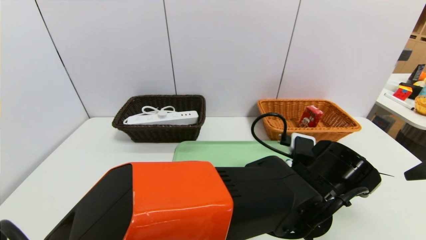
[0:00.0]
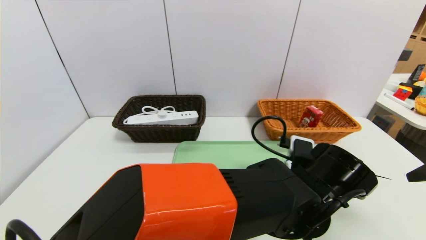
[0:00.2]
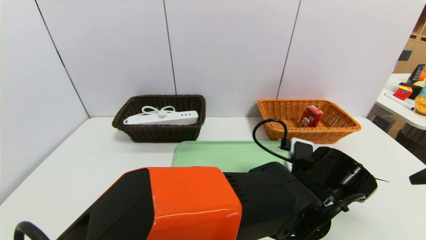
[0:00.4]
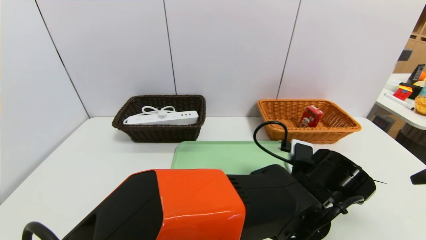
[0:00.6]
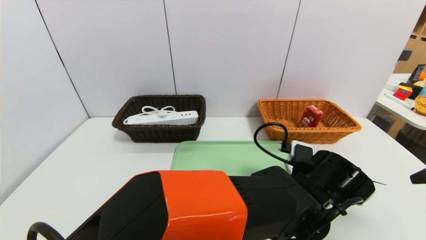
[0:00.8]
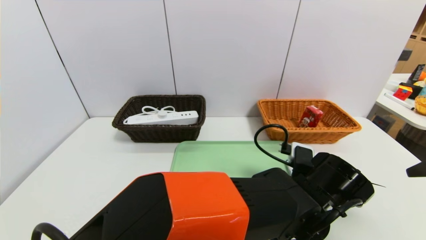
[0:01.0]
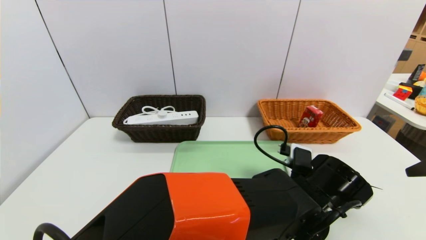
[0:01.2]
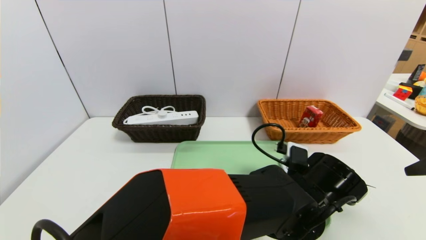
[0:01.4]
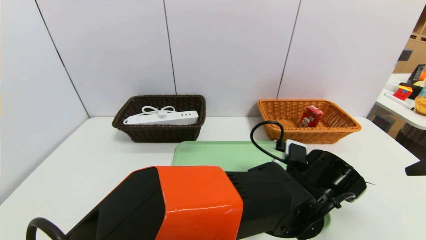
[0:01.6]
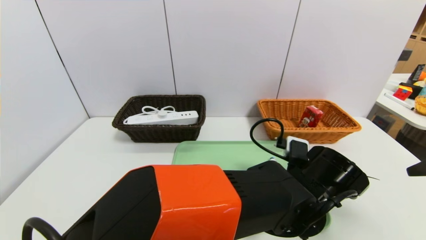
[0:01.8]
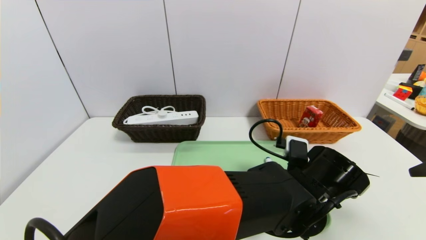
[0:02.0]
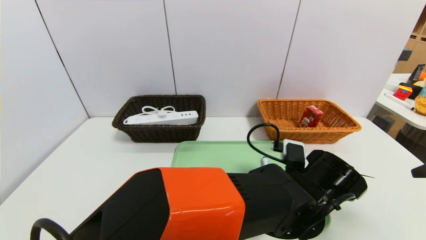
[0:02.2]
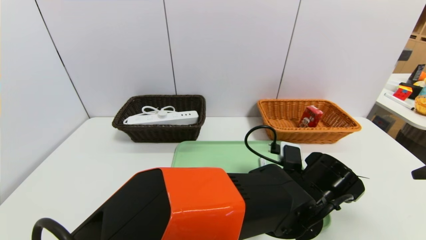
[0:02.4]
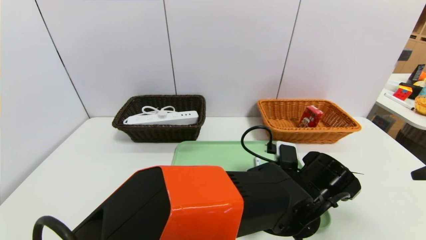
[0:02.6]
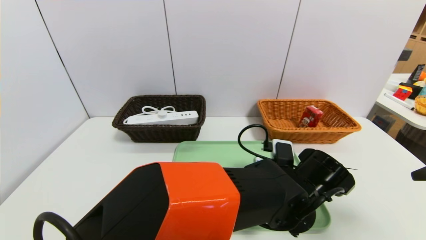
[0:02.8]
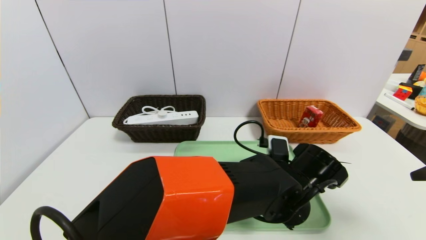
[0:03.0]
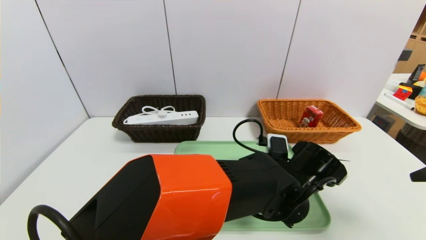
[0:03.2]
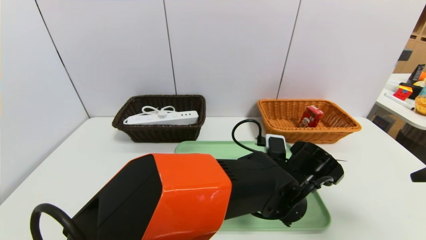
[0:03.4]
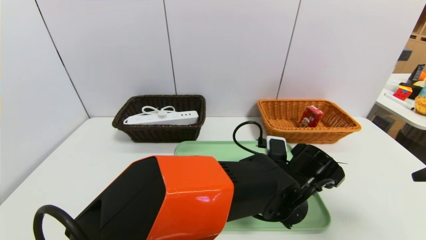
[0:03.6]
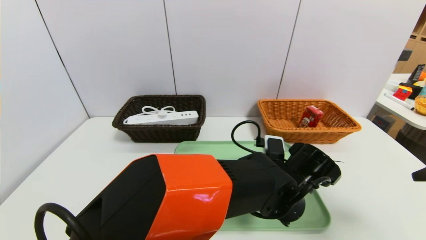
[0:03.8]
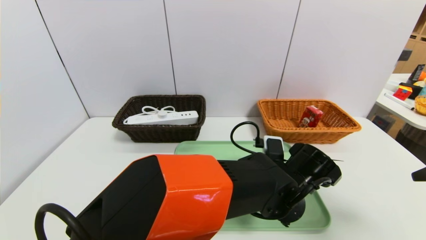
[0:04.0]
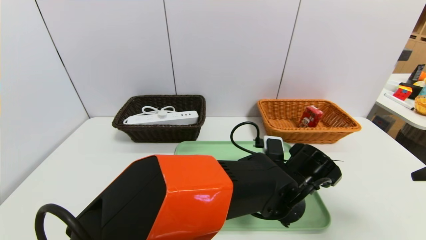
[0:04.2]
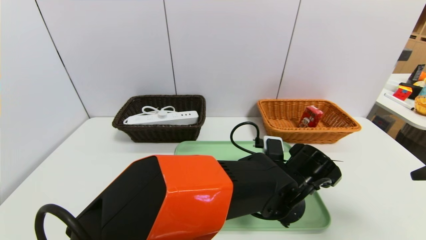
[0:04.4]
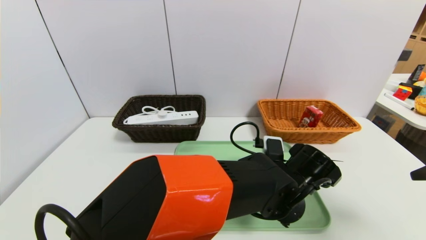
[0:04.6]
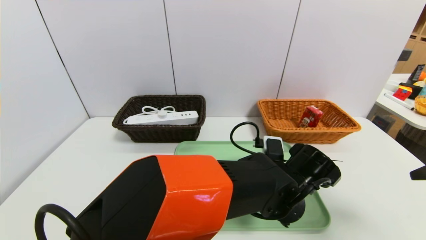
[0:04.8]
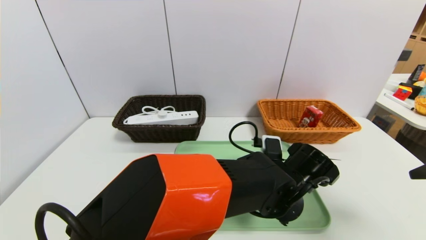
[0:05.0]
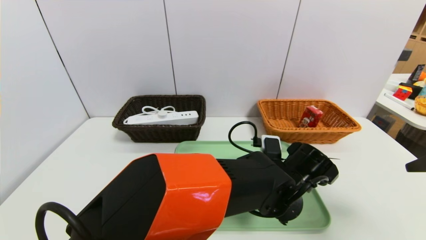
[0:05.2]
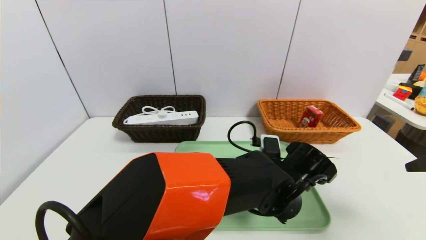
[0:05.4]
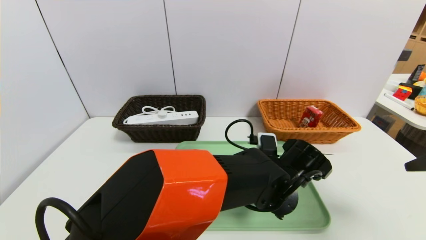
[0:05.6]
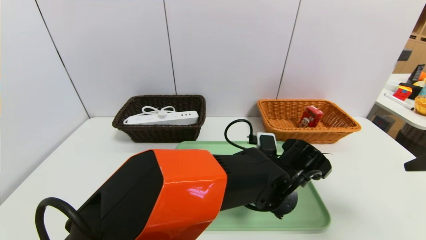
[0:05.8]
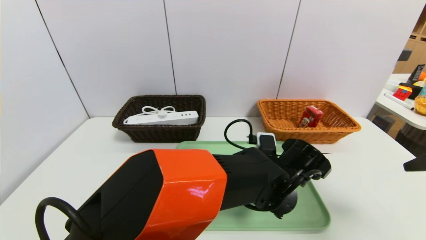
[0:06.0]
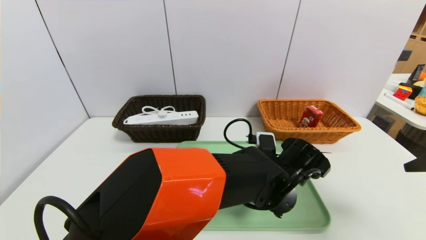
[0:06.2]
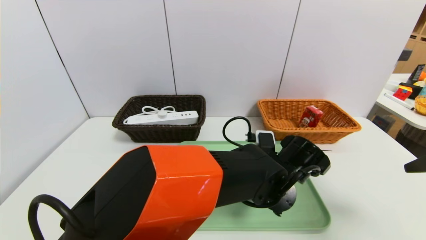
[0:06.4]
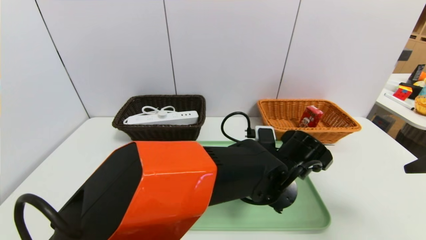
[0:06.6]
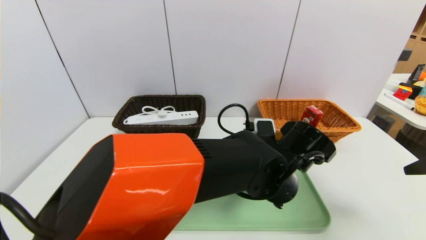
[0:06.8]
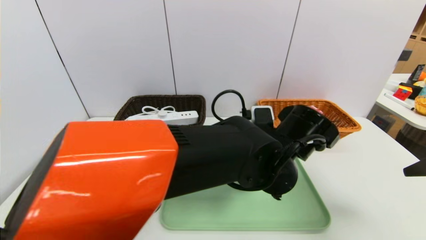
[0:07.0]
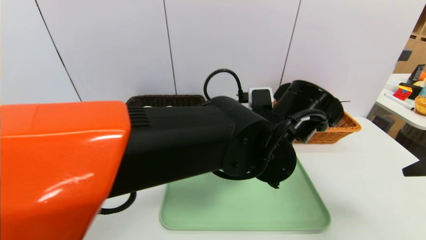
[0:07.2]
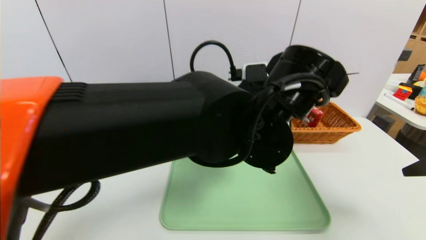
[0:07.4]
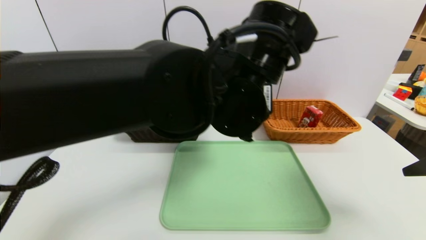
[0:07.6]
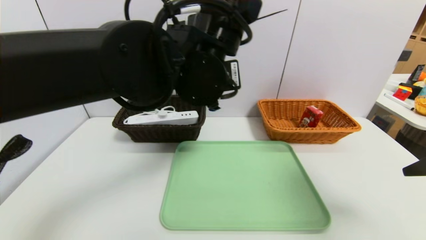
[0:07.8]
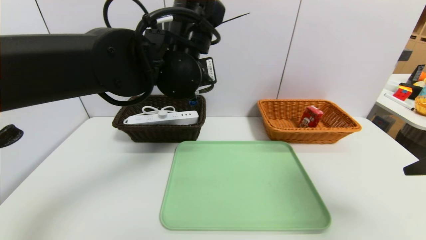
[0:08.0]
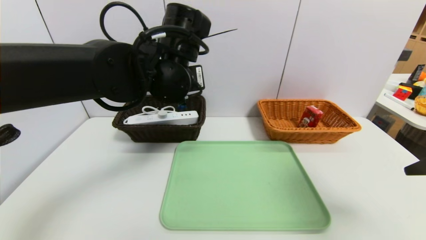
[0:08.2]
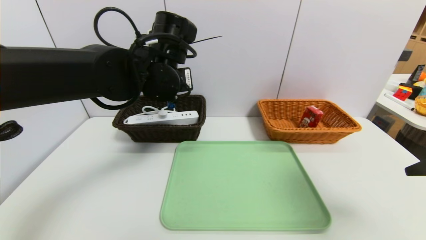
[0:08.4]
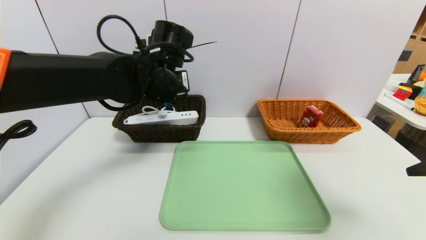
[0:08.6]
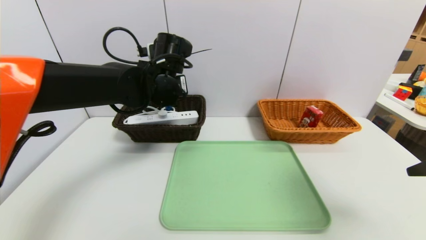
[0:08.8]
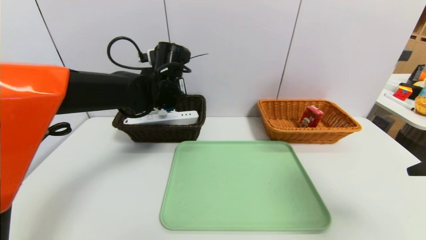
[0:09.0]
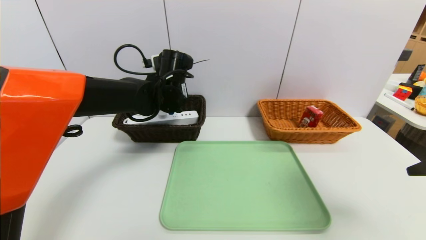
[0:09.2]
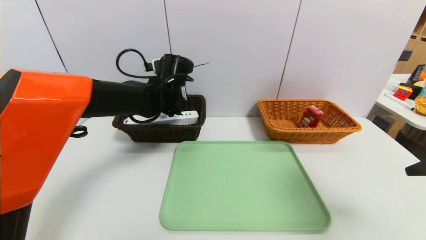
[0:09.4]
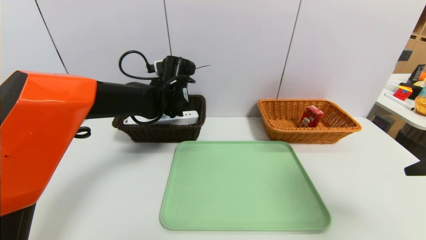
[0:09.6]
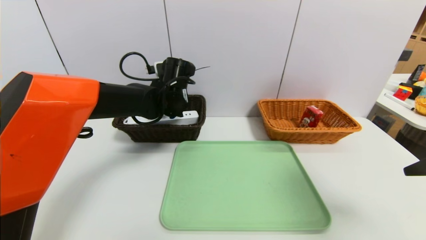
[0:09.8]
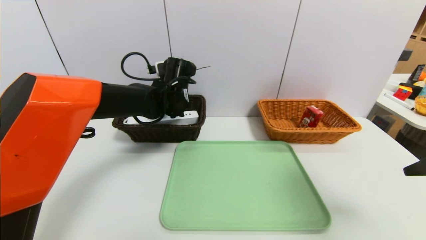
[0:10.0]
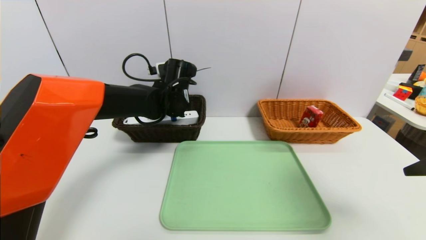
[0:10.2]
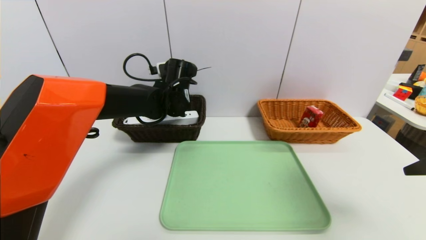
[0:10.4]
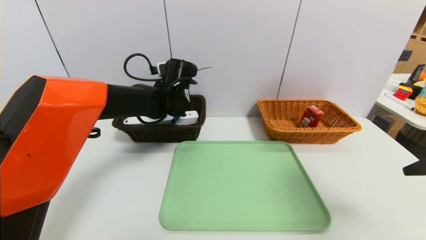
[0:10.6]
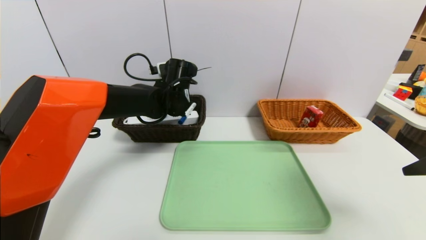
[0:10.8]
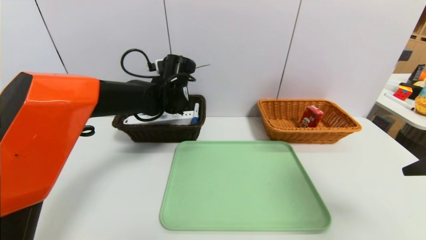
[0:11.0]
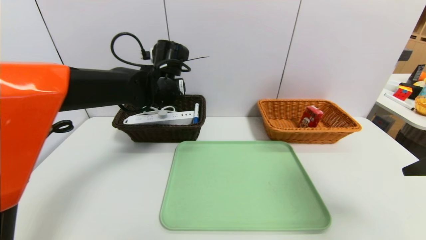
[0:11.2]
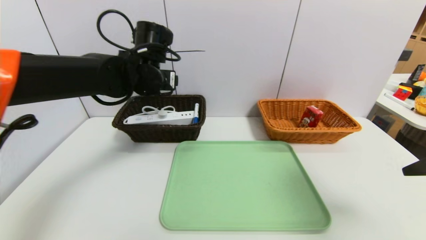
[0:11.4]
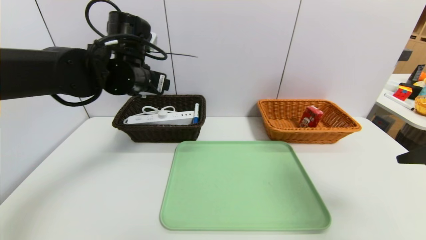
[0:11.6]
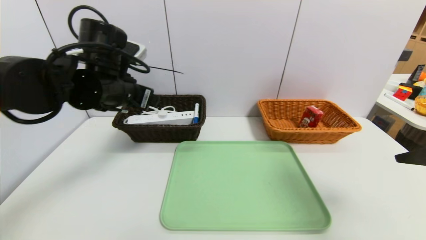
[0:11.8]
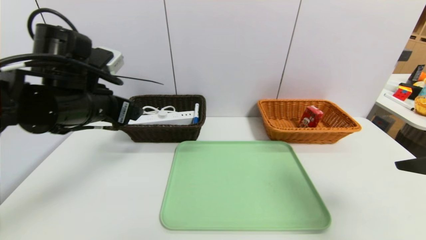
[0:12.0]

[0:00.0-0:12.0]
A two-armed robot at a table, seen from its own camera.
Task of the whole recording: place the food in the right basket with the right gripper, and place the non food items in the left basket with the left gripper.
Step, 0:00.0 to 0:11.6: Grasp the blue marker and put it in the left basket.
0:00.0 to 0:03.0: The grippers make only small movements.
0:03.0 to 0:04.4: Both grippers stay about where they are.
0:04.4 to 0:06.0: The left gripper closes its fingers.
0:06.0 to 0:07.6: The left gripper heads upward and to the left, covering about 20 cm.
0:07.6 to 0:09.0: The left gripper shifts approximately 20 cm forward and to the left.
0:09.0 to 0:10.4: The left gripper opens.
0:10.4 to 0:12.0: The left gripper heads backward and to the left, covering approximately 20 cm, and opens up.

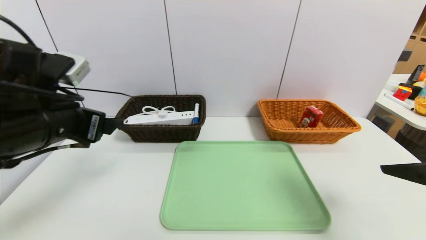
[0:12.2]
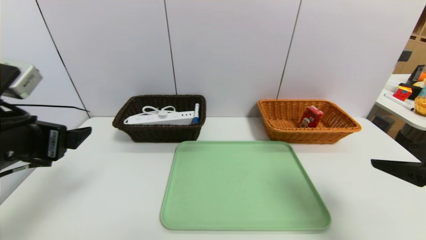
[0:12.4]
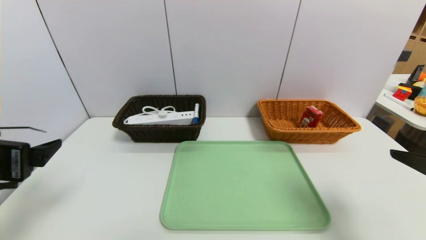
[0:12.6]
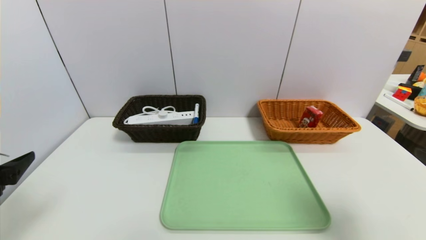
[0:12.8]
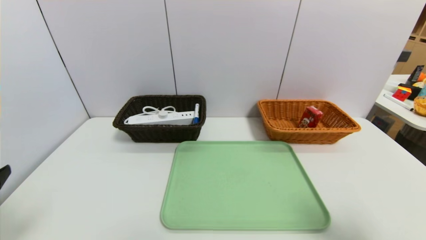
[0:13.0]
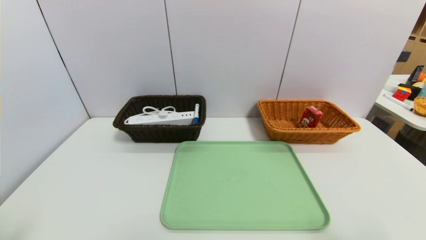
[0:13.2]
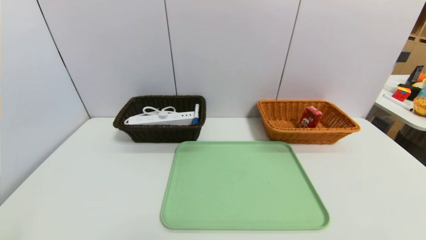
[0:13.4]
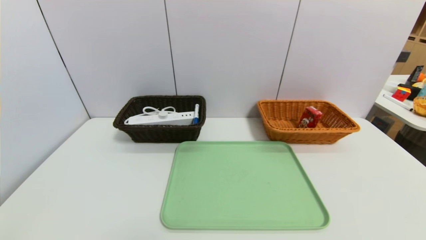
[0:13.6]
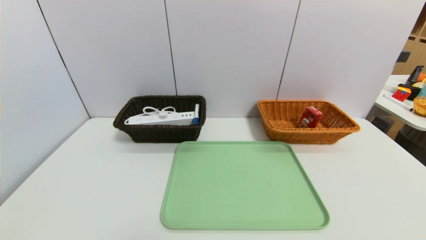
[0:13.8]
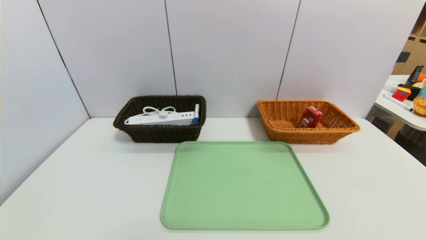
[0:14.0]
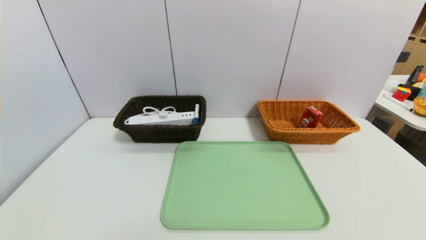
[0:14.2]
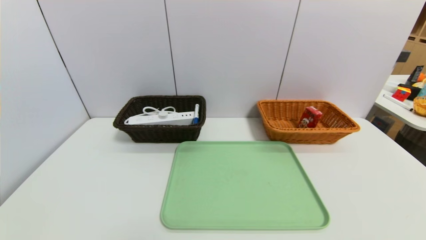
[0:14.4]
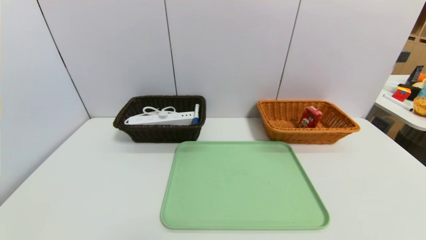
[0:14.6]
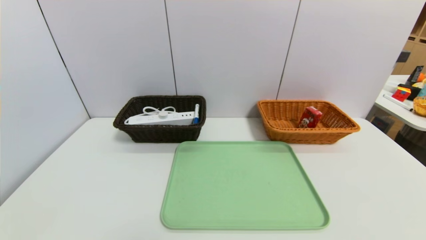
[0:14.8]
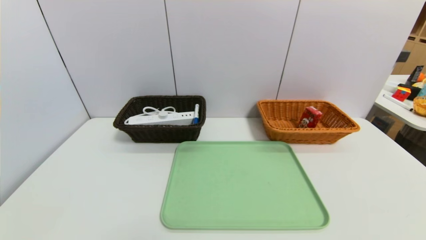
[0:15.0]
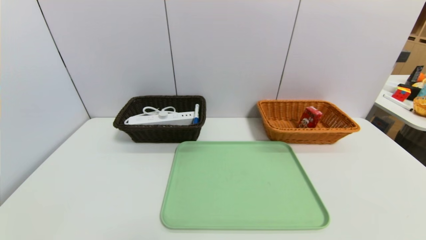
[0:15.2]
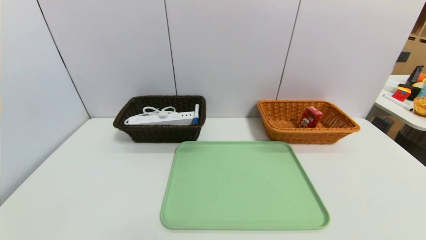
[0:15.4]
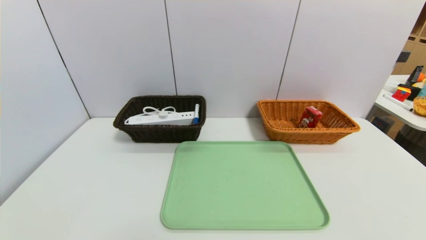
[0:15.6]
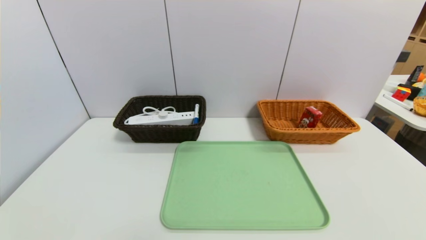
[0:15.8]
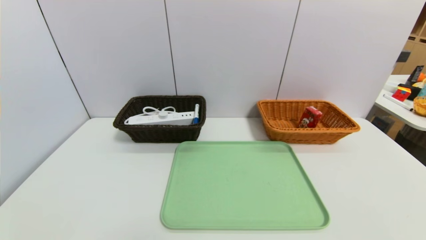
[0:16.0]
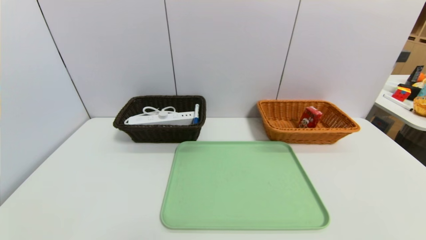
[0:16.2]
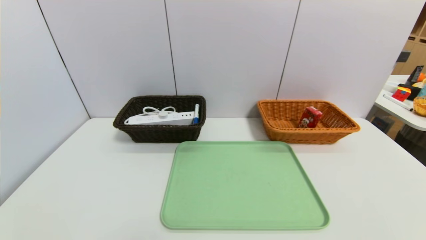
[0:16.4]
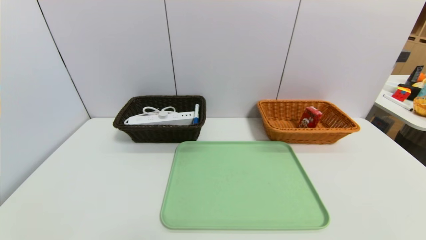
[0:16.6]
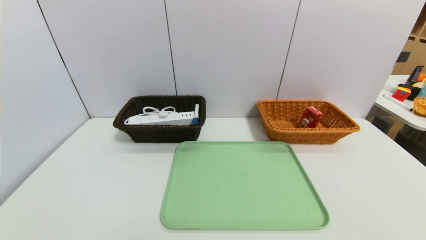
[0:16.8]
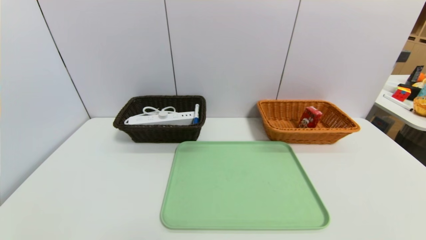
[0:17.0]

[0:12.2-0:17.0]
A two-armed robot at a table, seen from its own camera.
Task of the whole recording: place the food in the right basket with the right gripper, and place the non food items in the left basket with the left gripper.
0:12.2 to 0:13.8: The right gripper moves backward, about 20 cm. The left gripper shifts about 25 cm backward and downward.
